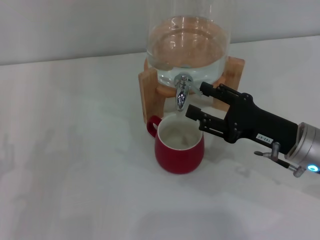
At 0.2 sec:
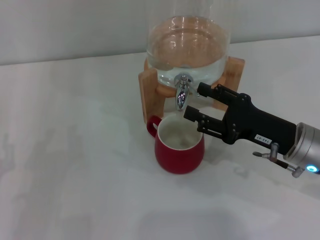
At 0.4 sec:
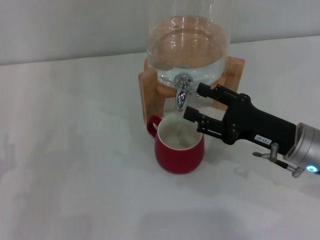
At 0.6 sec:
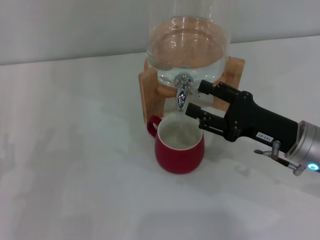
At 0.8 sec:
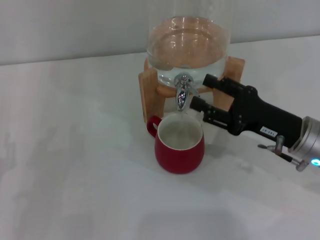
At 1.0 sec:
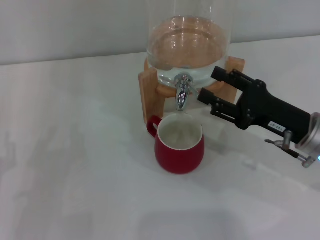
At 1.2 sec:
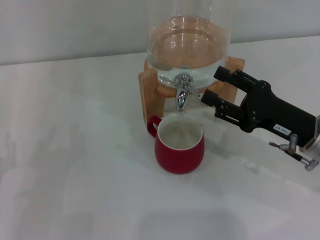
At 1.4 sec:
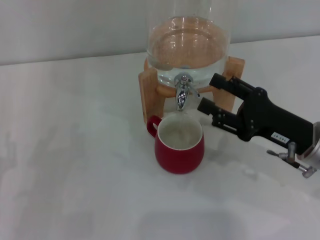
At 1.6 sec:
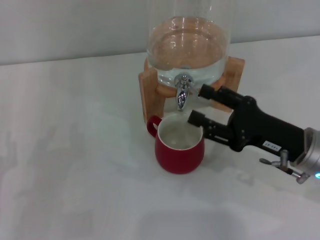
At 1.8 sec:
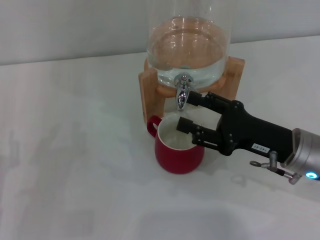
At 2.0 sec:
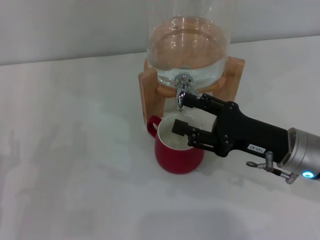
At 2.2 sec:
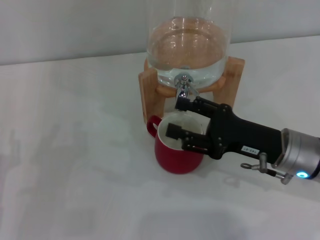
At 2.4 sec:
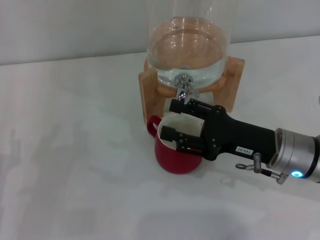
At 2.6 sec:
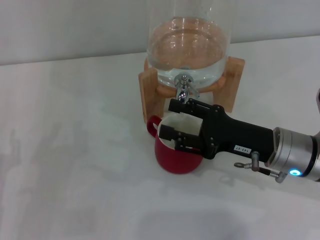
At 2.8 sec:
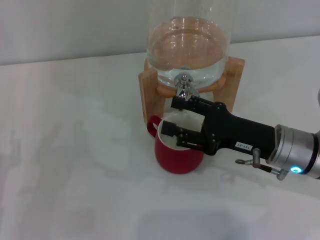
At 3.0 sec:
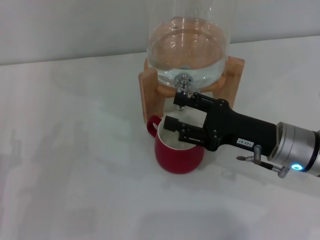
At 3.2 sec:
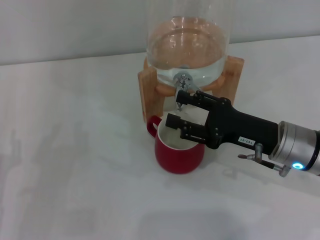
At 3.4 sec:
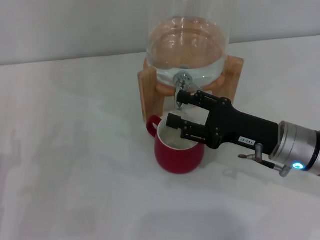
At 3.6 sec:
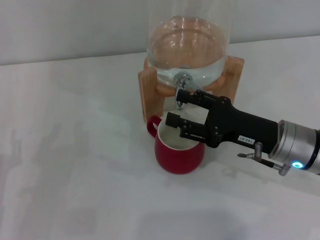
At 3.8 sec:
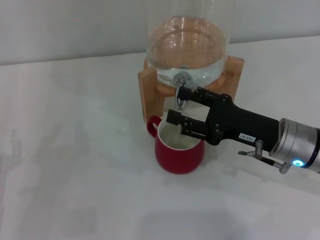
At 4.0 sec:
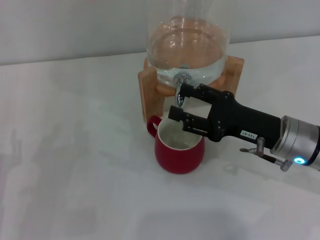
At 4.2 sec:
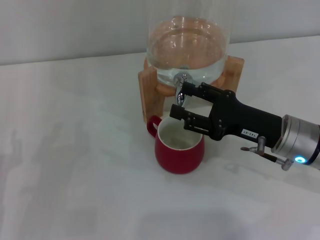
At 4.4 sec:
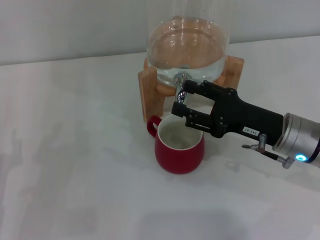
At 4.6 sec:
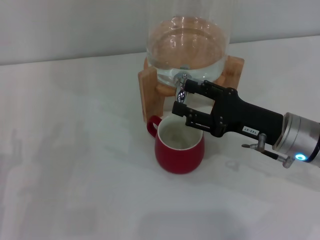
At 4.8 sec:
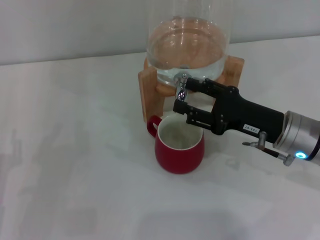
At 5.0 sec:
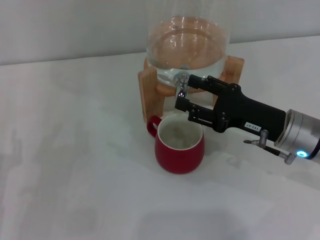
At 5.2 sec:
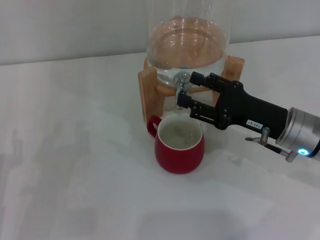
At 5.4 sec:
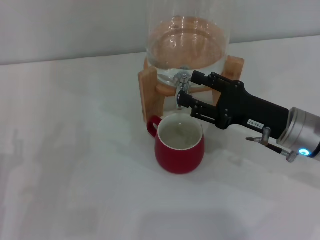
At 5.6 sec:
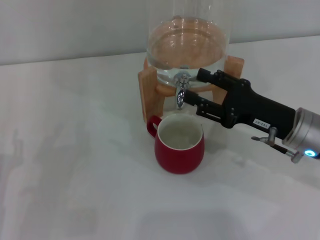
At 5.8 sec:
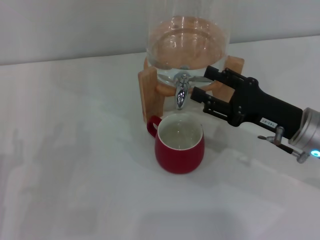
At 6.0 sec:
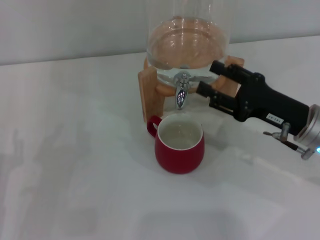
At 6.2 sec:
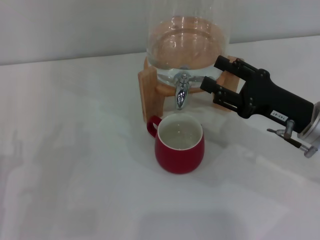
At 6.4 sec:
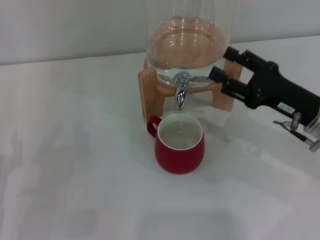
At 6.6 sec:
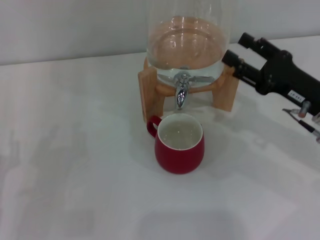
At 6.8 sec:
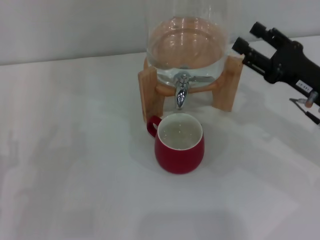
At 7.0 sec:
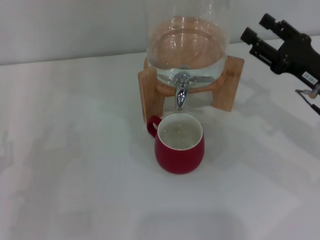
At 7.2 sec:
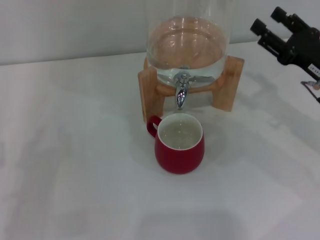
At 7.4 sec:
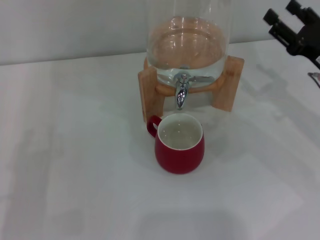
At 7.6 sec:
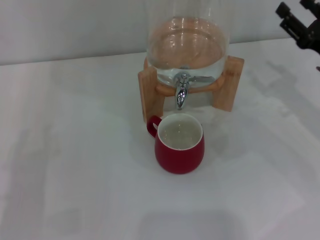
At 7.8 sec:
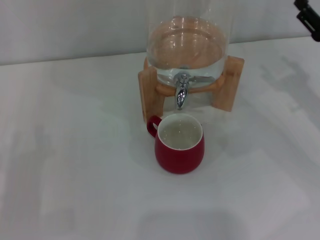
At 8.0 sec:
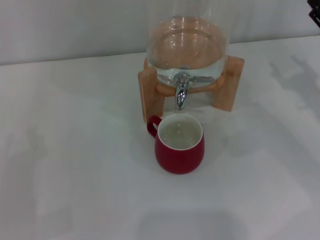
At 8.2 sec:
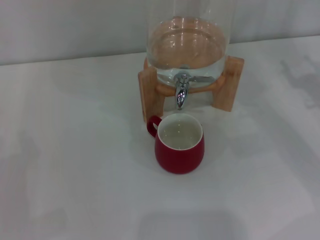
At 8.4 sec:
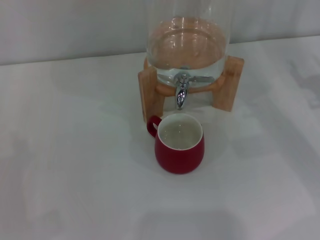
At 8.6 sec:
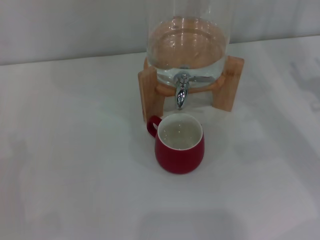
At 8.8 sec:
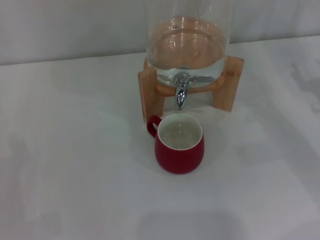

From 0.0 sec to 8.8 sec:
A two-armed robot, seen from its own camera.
Task of the whole recording: the left gripper pick up the red cup and place it horizontally under the faucet, the right gripper turn on the faucet to fill the cup, and then turn off the faucet.
Step, from 1.2 sec to 5.8 sec: Close the dispenser valve with the right gripper.
From 0.0 sec to 3.0 sec: The grippers make only small movements.
From 3.0 sec to 4.4 sec: Both grippers stay put.
From 4.4 sec to 5.8 sec: The grippers make only small movements.
From 5.8 sec to 7.4 sec: The right gripper travels to the right by about 5 cm.
From 7.4 sec to 8.8 sec: The right gripper shifts by roughly 5 cm.
